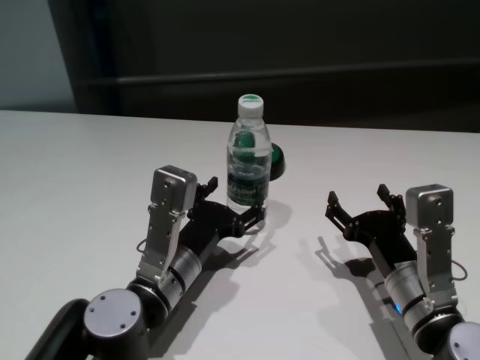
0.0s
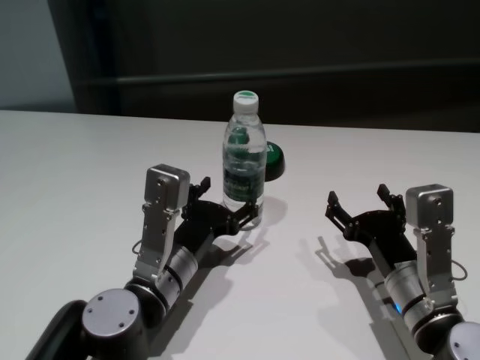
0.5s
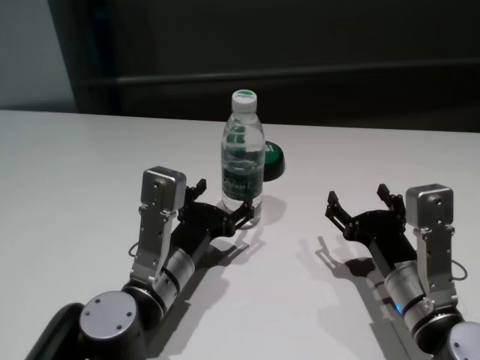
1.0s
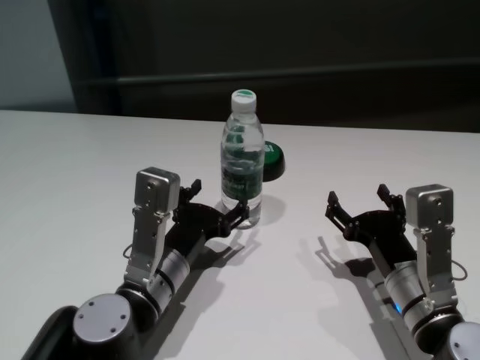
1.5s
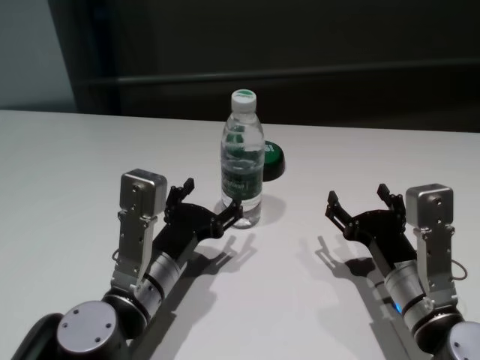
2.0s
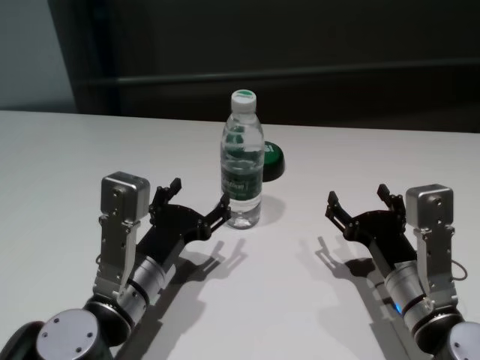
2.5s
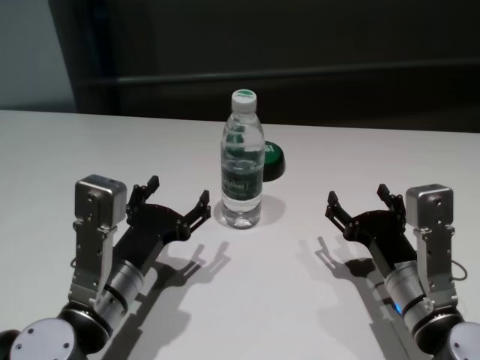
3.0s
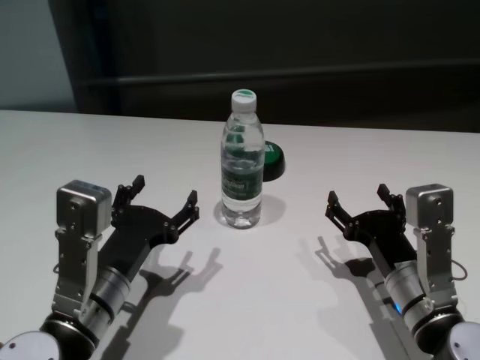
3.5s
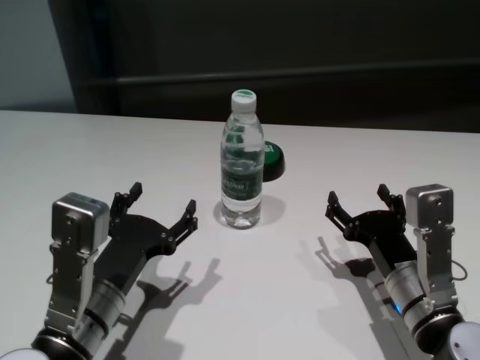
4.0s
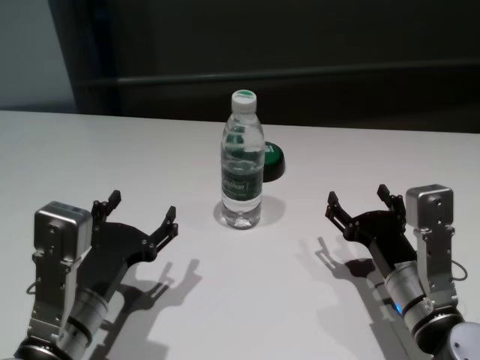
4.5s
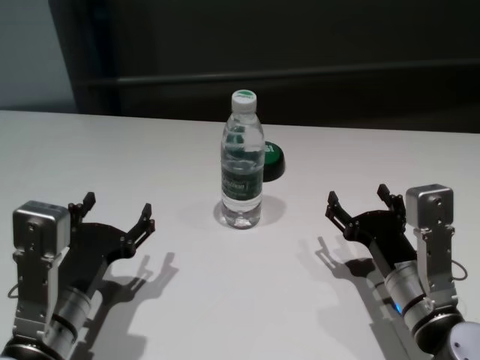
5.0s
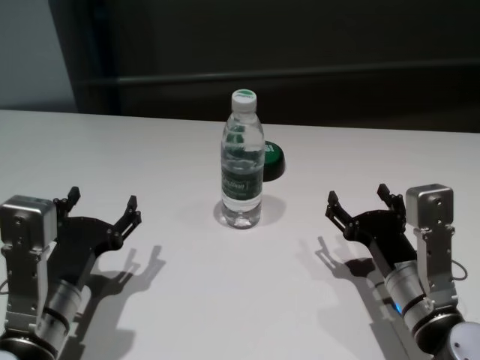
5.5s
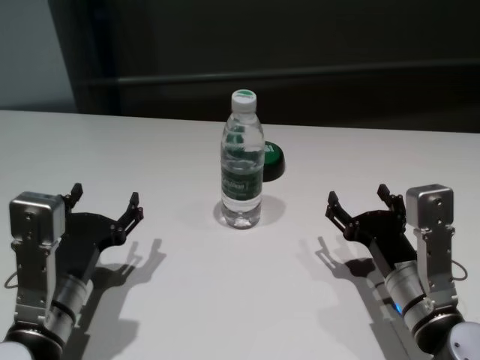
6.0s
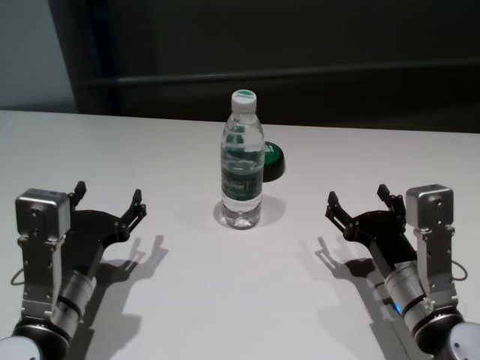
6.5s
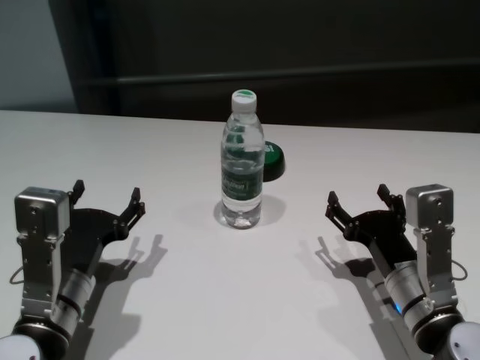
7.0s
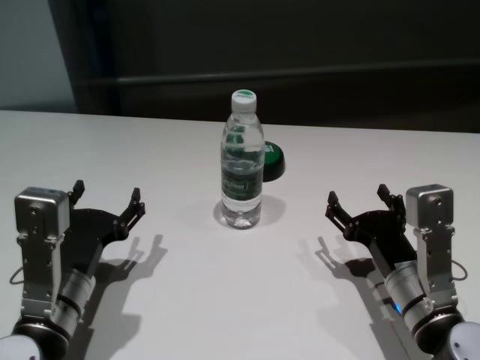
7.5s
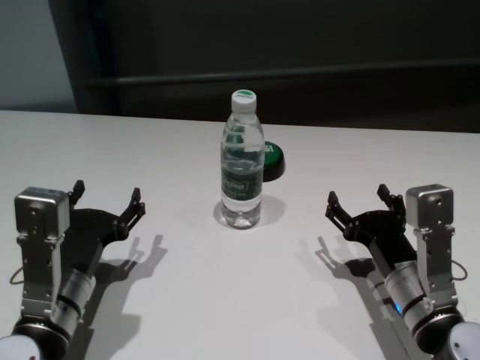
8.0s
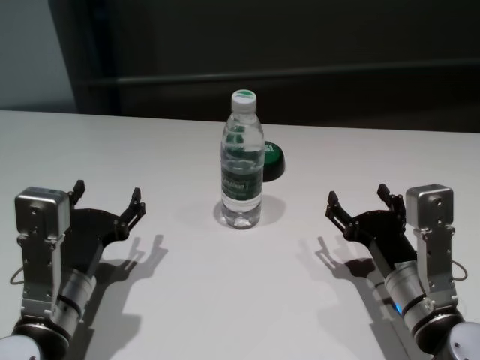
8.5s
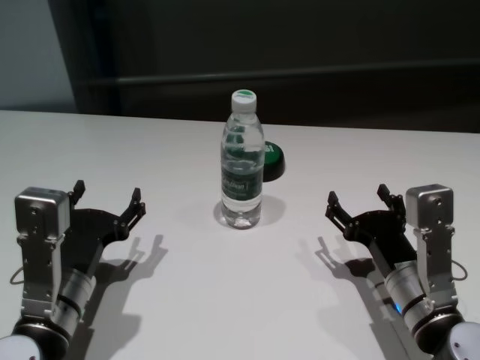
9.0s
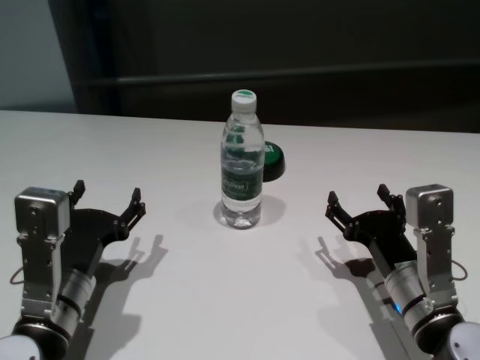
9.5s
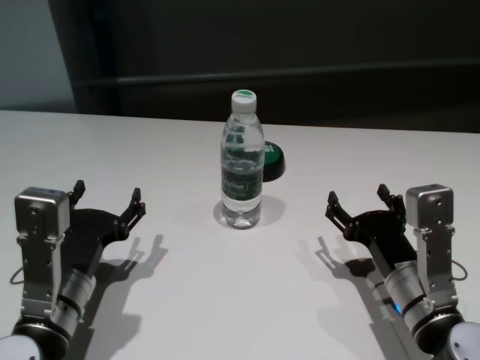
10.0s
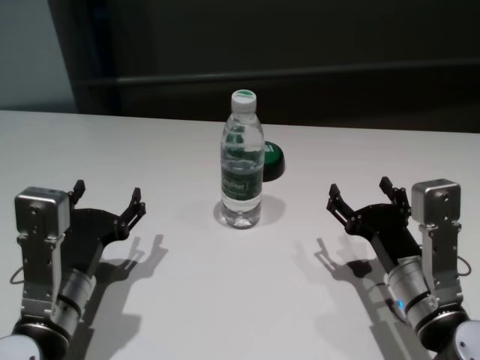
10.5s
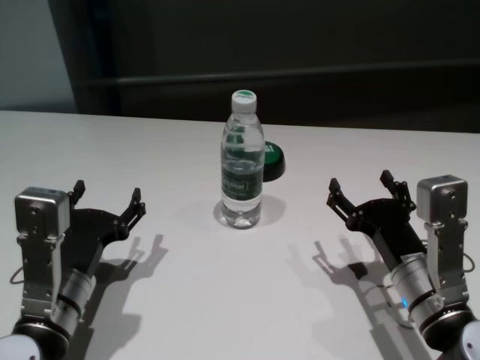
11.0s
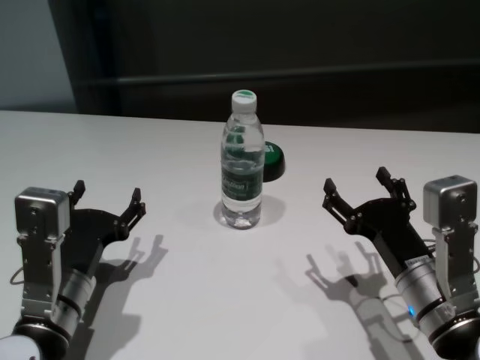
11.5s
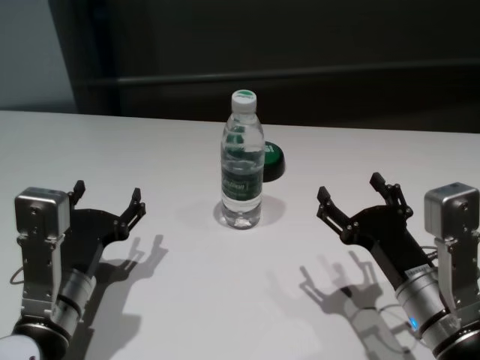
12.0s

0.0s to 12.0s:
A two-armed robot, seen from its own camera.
Task of the whole recording: return to a safe position after touching an obstacle with your arm on the white table.
Step, 0.0s to 2.0s: Touch the bottle with left gripper.

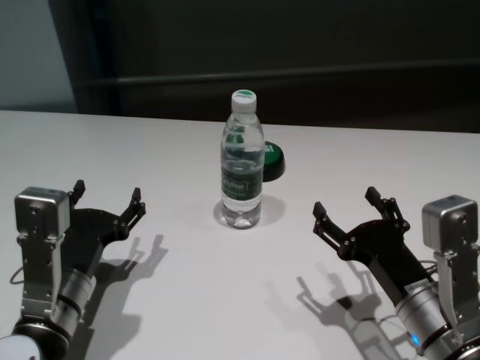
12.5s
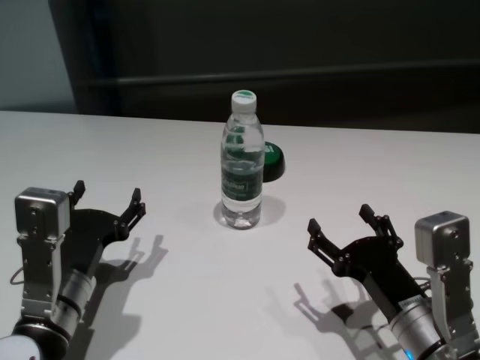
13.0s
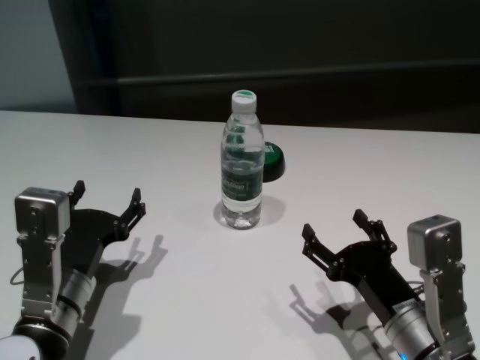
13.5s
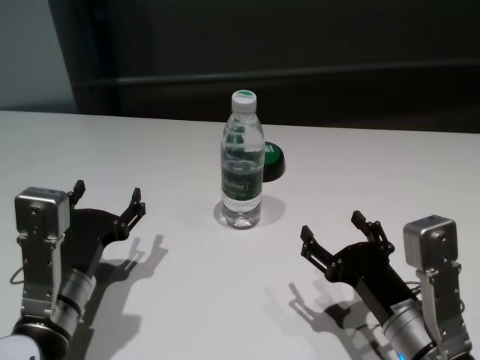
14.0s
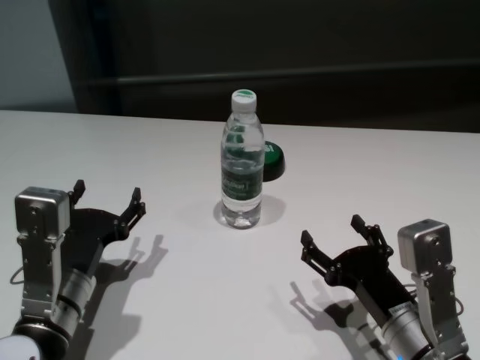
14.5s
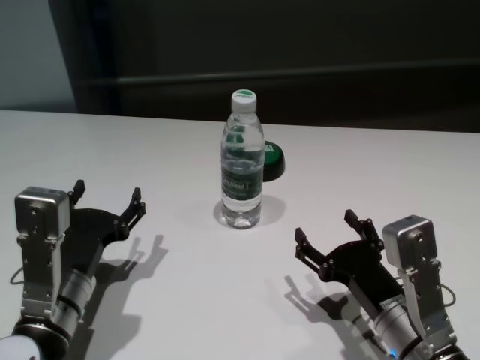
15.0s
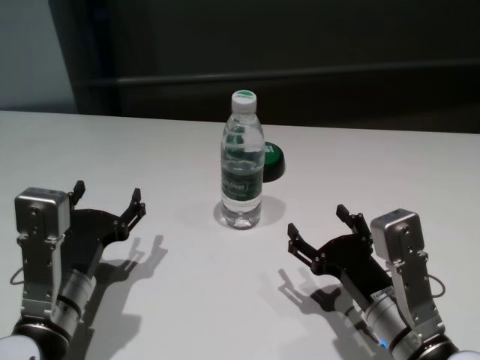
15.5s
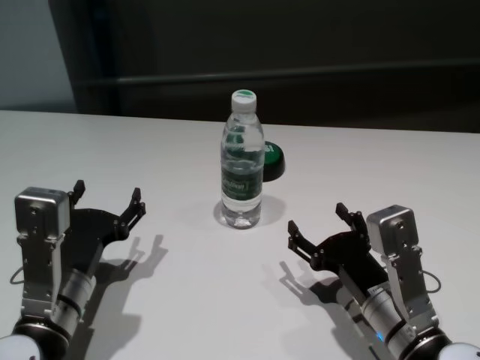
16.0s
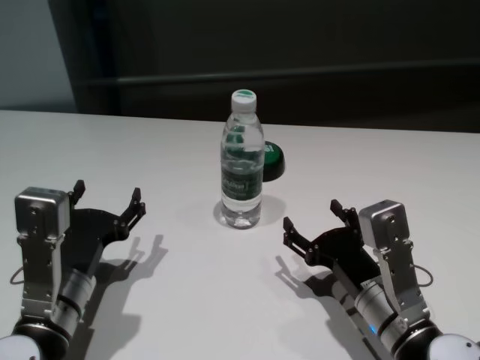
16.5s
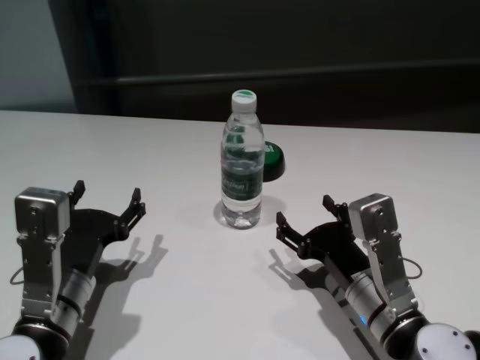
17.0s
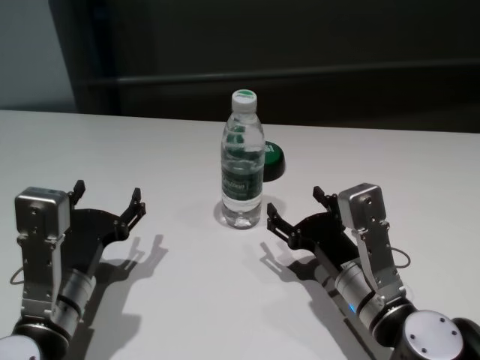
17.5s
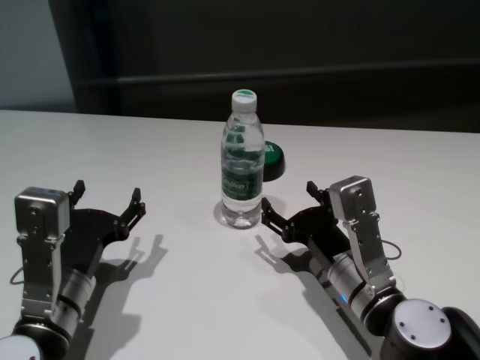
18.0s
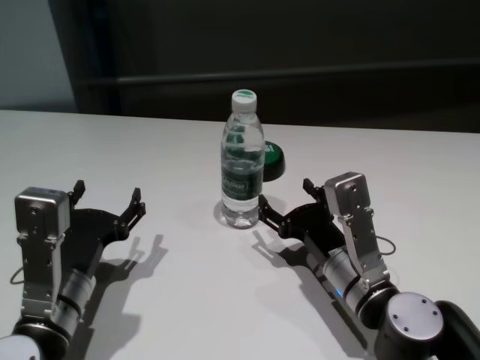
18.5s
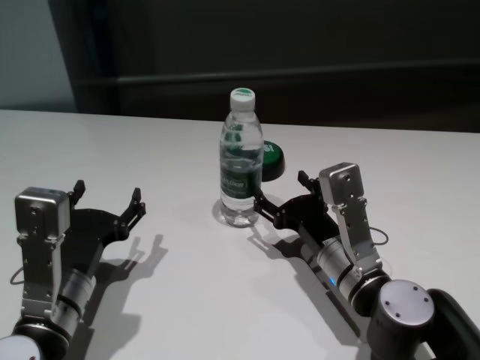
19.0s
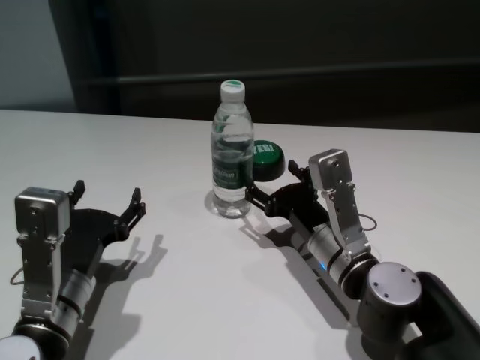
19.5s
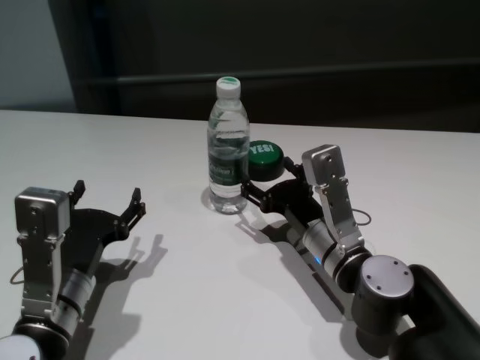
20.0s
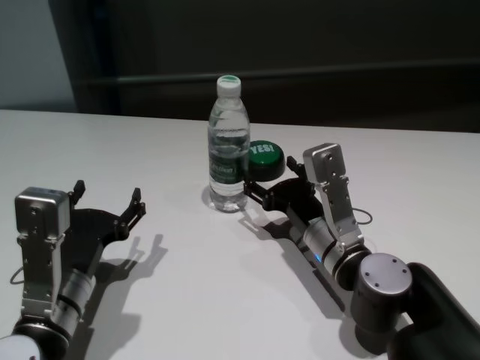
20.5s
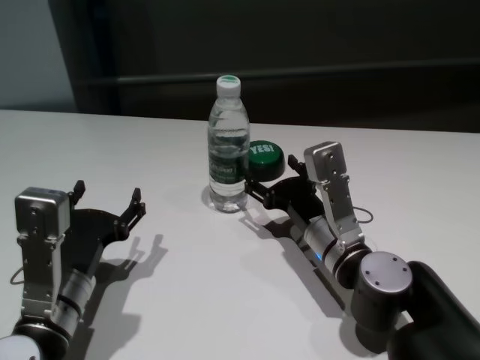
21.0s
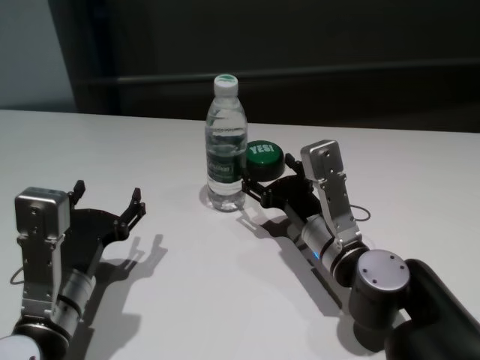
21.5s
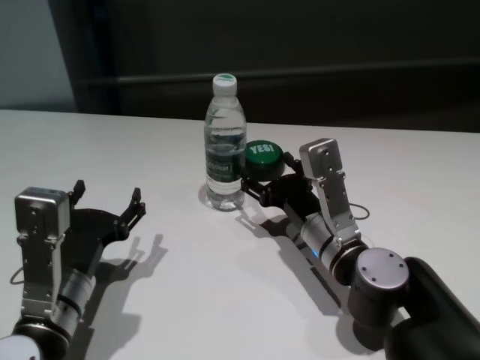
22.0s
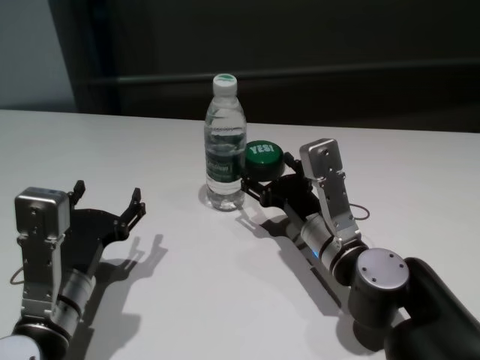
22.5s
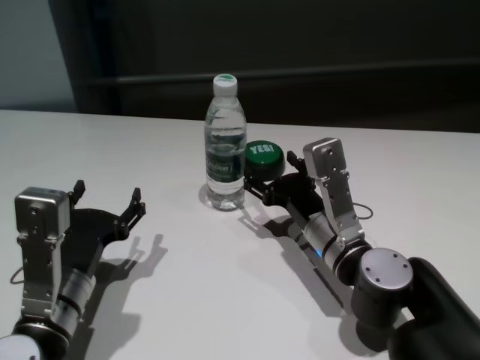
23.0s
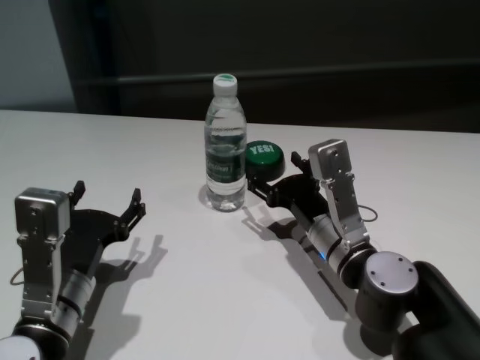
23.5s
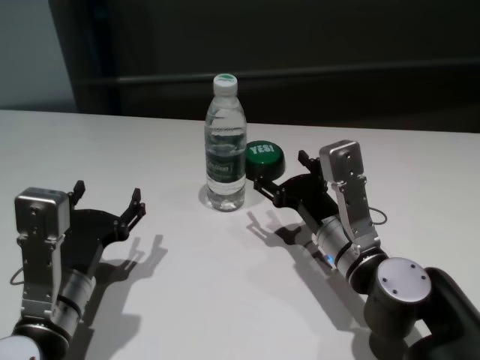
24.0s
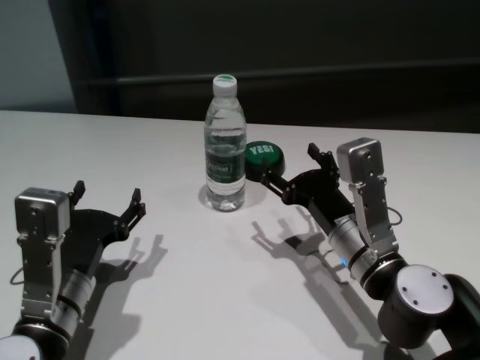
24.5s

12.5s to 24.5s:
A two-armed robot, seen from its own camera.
Task of the whole recording: return to a safe position after touching an obstacle with your arm on the white table.
Step, 12.5s to 24.0s: Touch the bottle with right gripper.

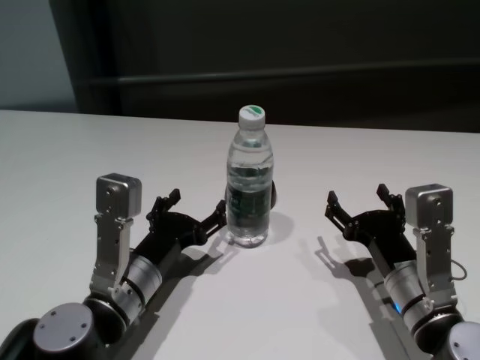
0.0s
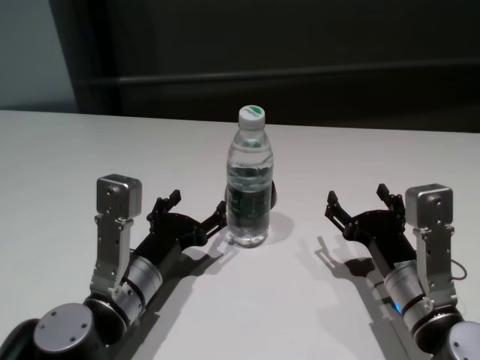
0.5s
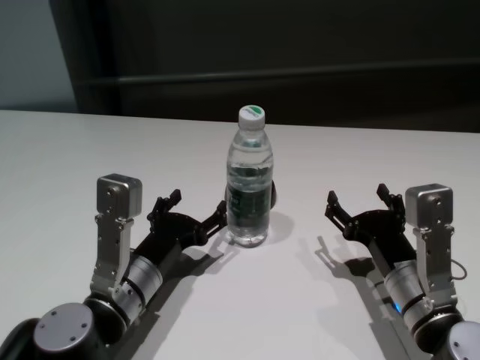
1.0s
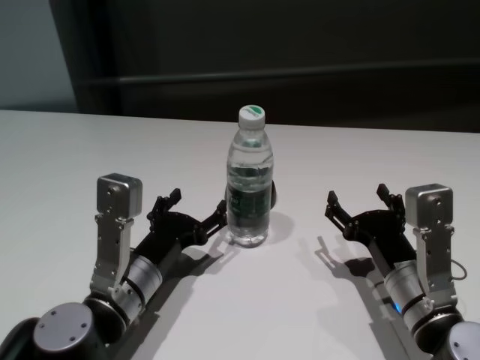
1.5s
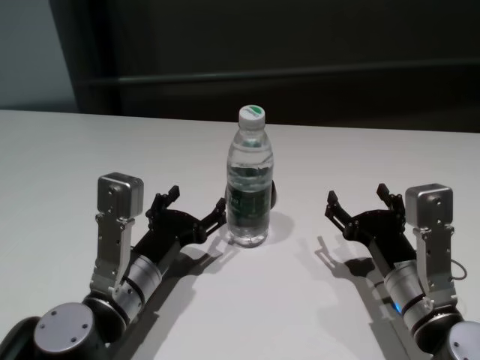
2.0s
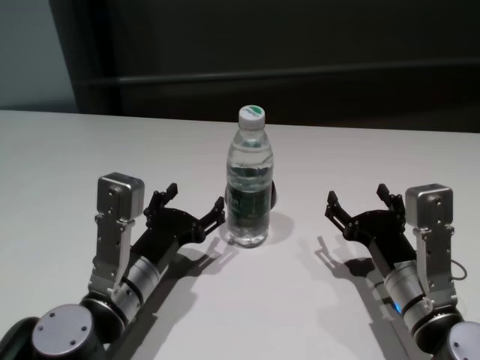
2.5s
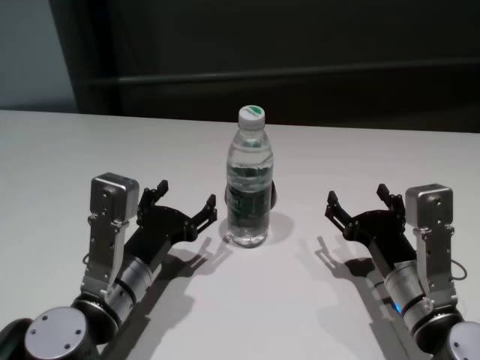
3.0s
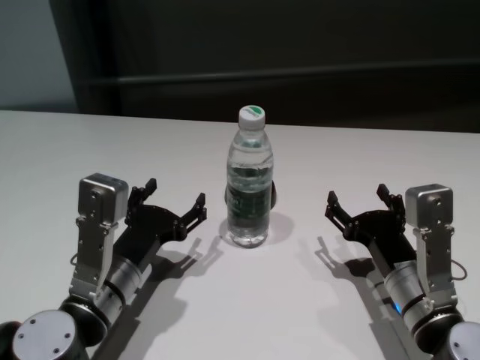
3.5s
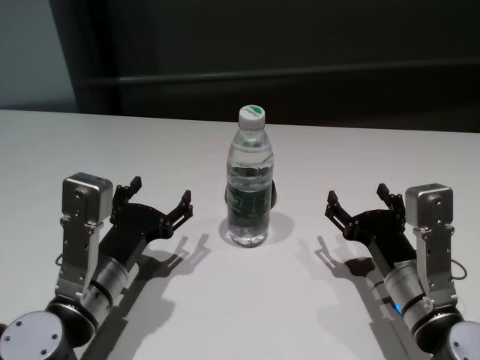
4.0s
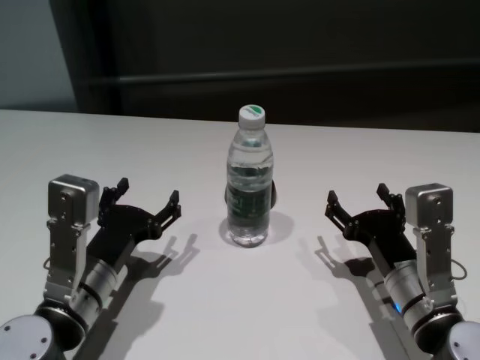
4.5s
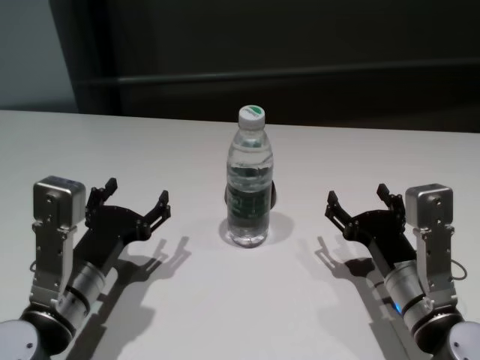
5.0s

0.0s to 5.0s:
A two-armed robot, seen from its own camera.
Task of the whole recording: return to a safe position after touching an obstacle with your arm on the white table.
Step, 0.0s to 3.0s: Touch the bottle with left gripper.
